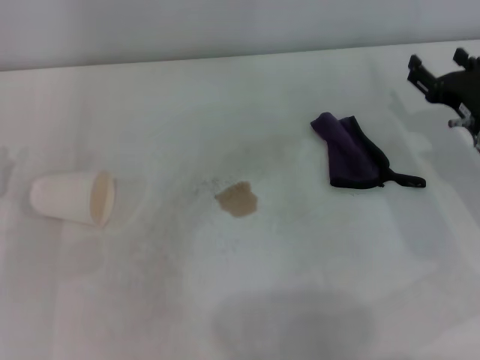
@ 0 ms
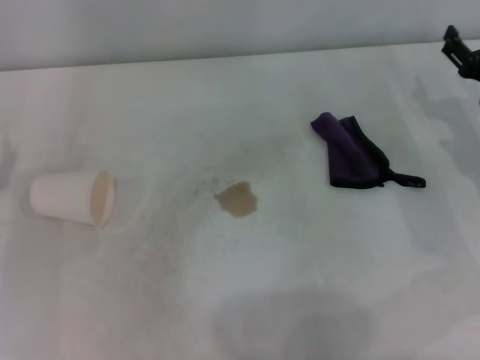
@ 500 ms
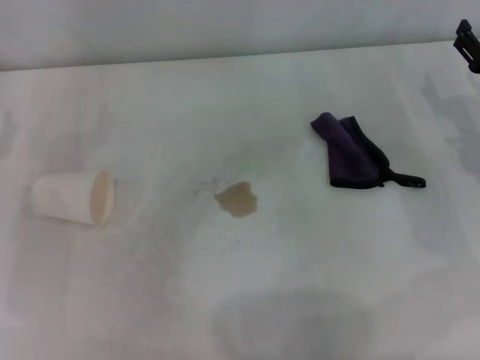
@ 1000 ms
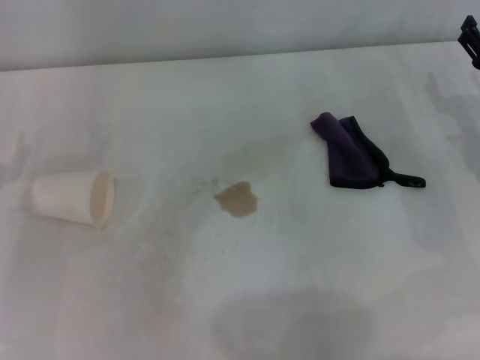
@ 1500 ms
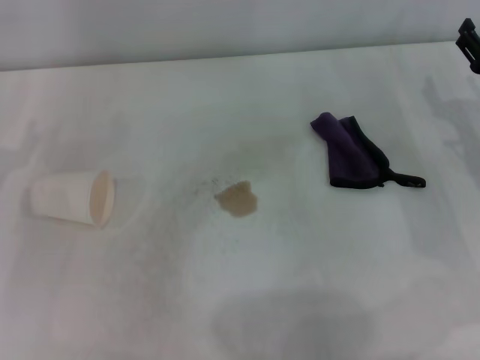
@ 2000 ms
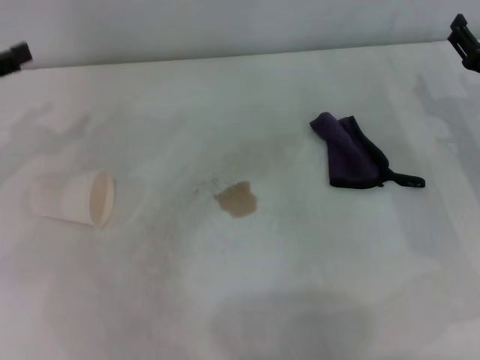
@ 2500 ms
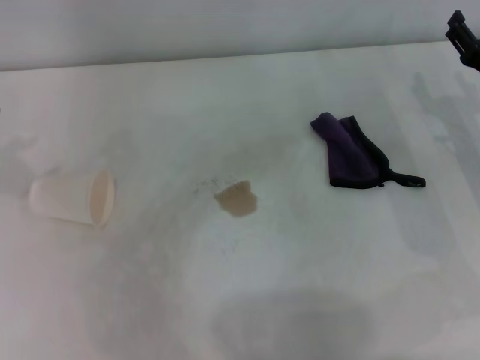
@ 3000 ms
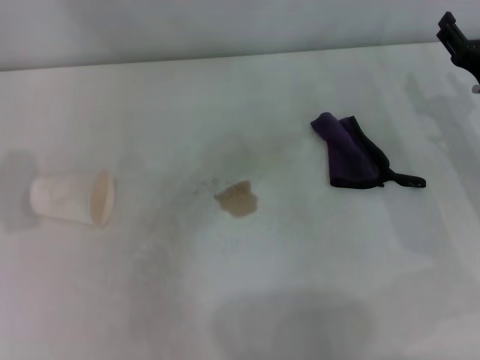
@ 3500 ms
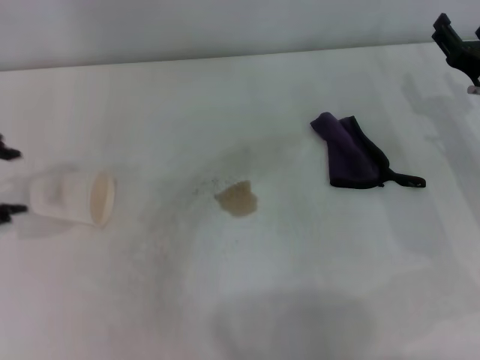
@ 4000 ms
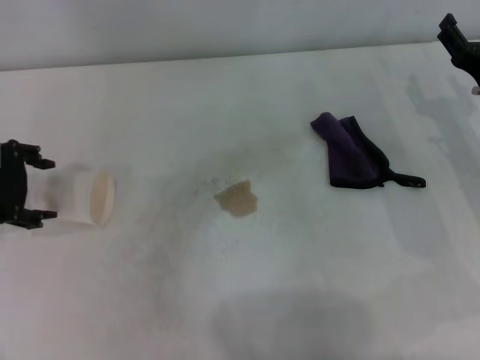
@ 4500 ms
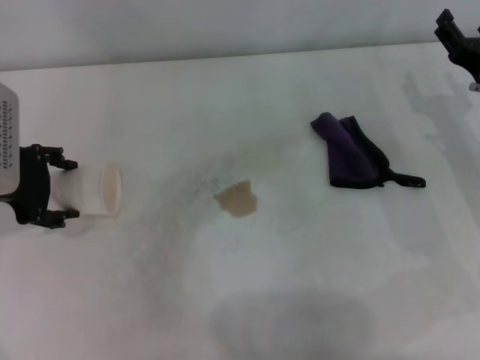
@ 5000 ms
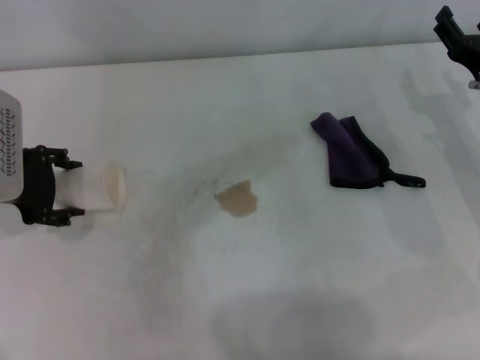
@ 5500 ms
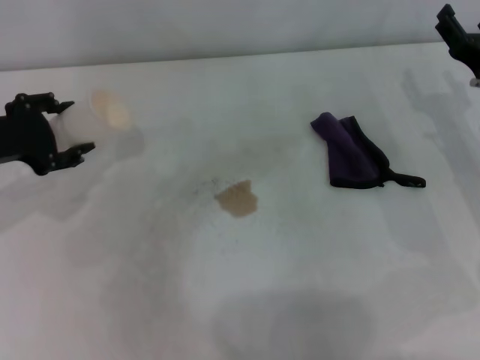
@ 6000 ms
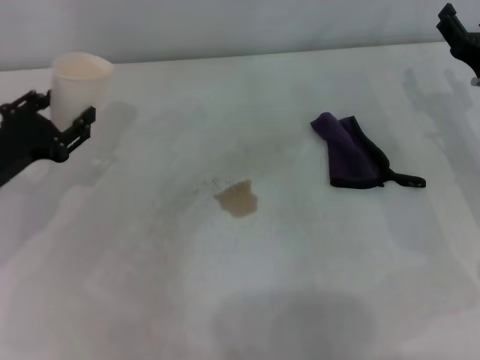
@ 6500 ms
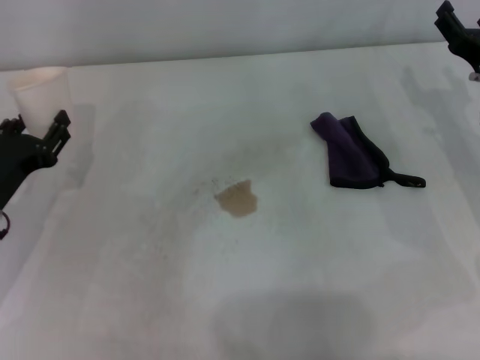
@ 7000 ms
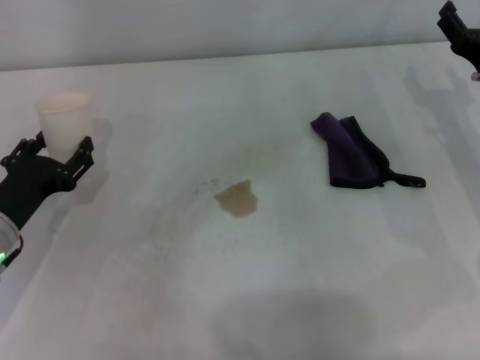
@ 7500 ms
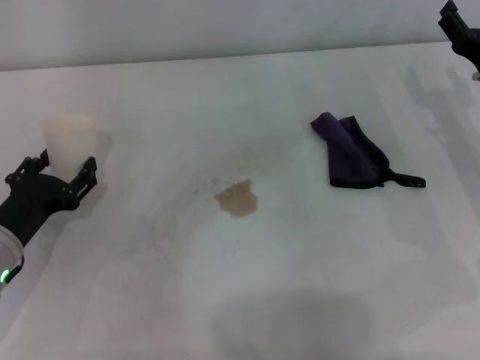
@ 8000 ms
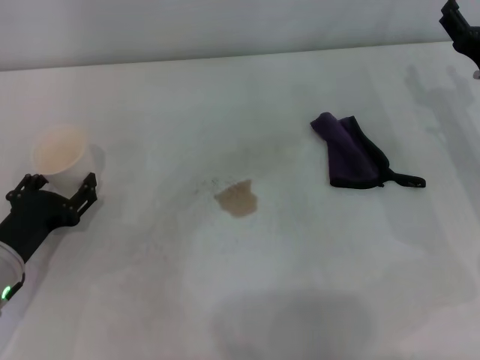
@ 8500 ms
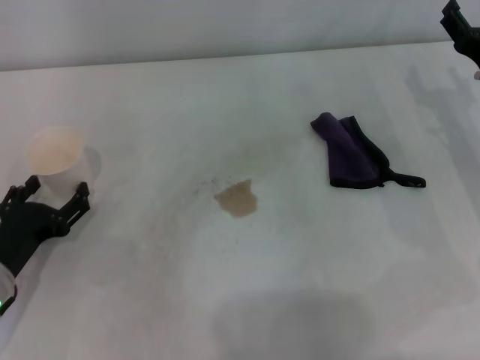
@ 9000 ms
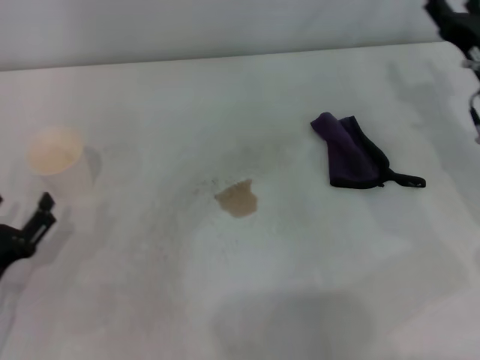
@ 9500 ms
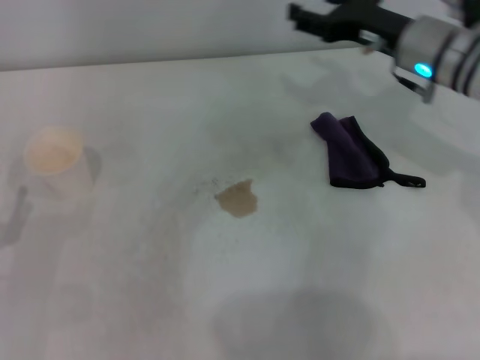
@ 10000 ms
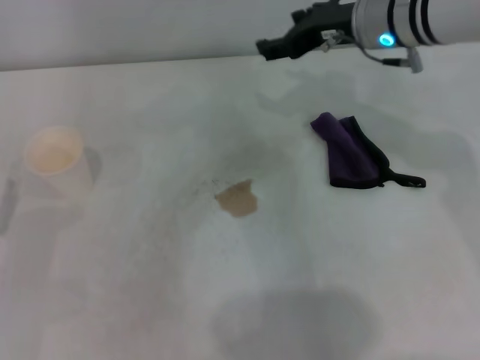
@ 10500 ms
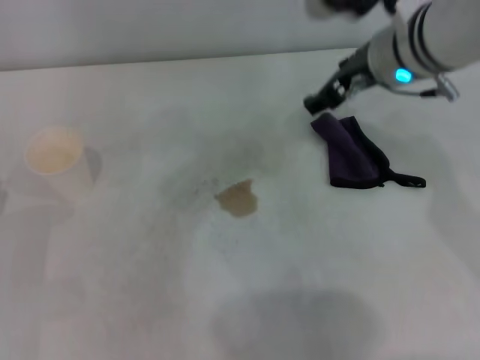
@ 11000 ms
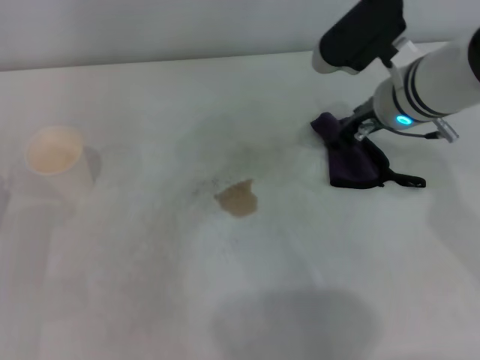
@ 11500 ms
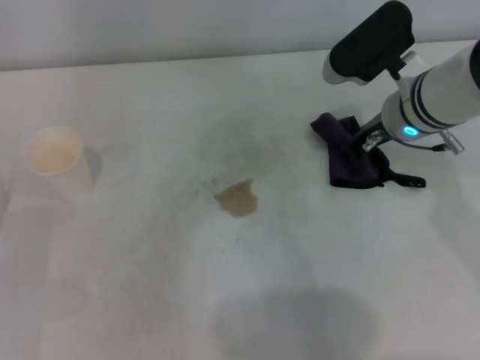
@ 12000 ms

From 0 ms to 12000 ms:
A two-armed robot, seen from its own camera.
Step, from 0 ms to 5000 ms: Grasp the paper cup with the left gripper.
Step, from 5500 ms to 8500 ms: Stand the paper cup upright with the left gripper.
From 4000 ms to 6000 ms: The left gripper travels downward by roughly 5 cm.
From 6000 ms to 8000 ms: The left gripper heads downward and backward, covering about 15 cm.
From 8000 ms to 10000 ms: The right gripper travels to the left, forward and upward by about 10 cm; the left gripper shifts some 10 cm backward and to the left, and opens.

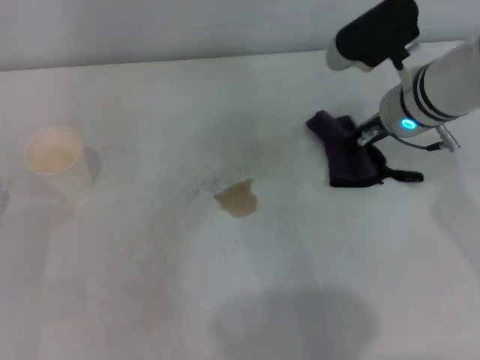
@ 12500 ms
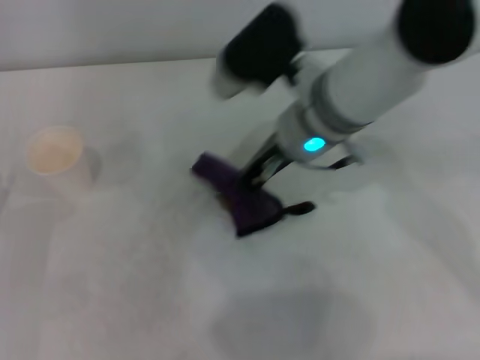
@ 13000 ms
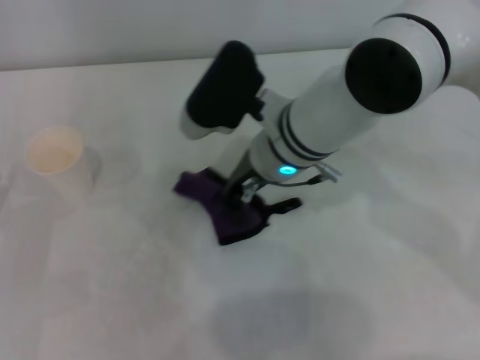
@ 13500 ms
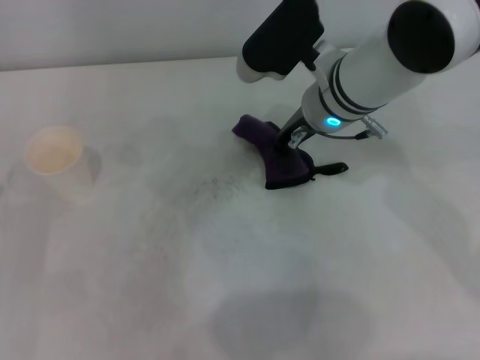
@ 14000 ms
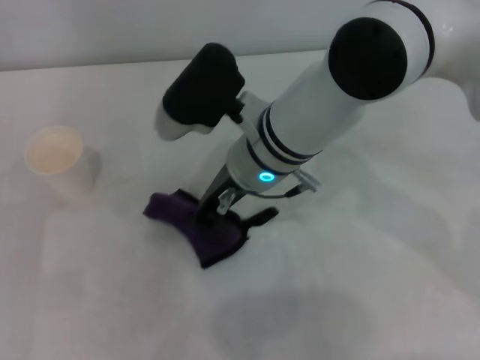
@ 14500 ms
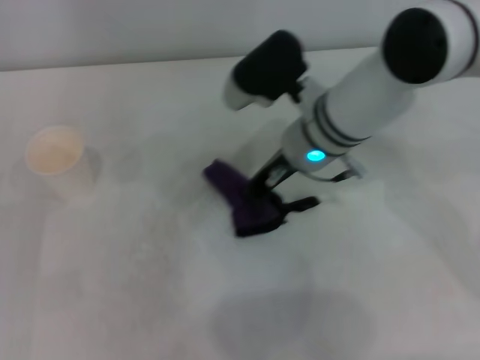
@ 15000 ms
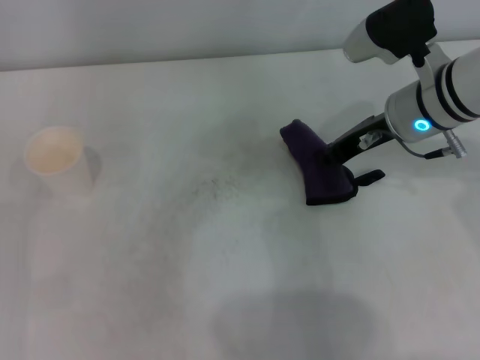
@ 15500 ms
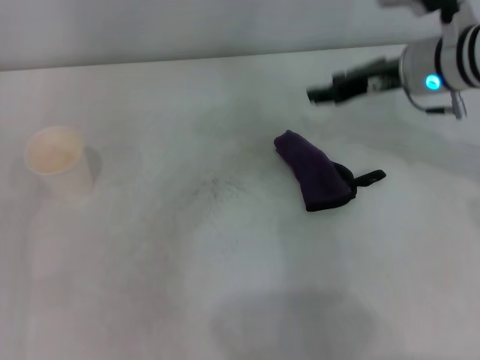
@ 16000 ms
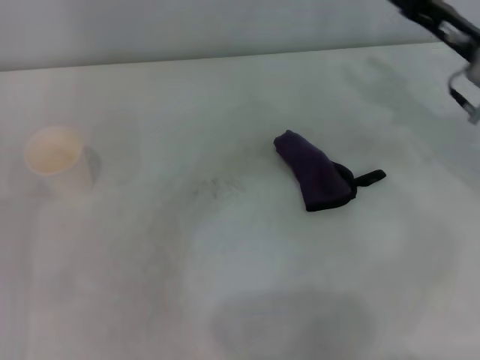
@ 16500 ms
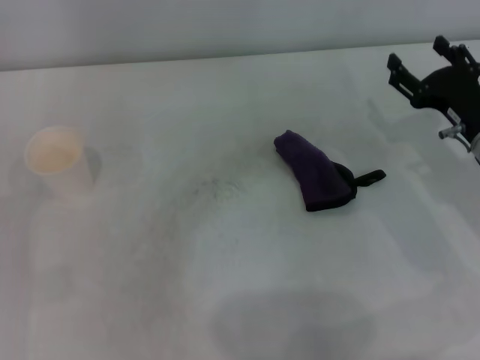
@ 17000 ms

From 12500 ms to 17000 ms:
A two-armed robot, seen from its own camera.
Step, from 12500 ms to 14500 ms: Wipe the stains off the table with the right gripper.
Step, from 15000 ms to 15500 ms: Place the rag on the table with the right gripper.
From 12500 ms to 14500 ms: The right gripper goes left and right, some 15 cm each way, reversing 2 times.
From 14500 ms to 17000 ms: The right gripper travels to the right by some 25 cm, and opens up.

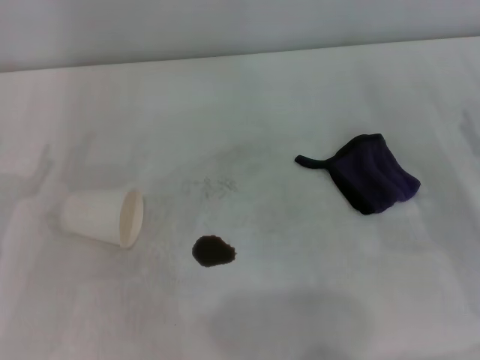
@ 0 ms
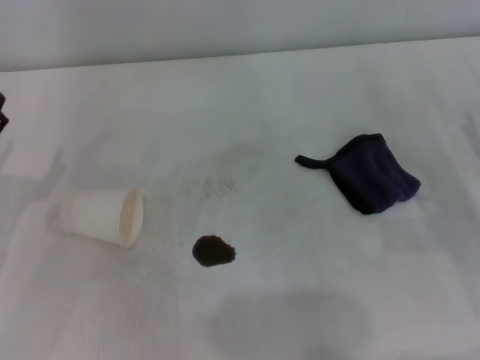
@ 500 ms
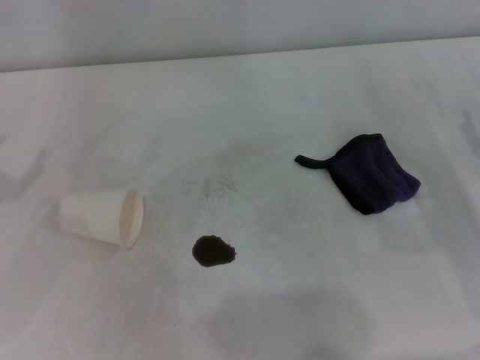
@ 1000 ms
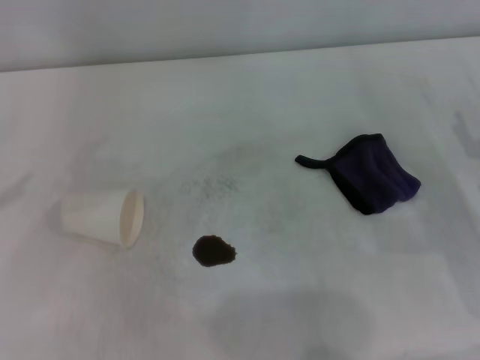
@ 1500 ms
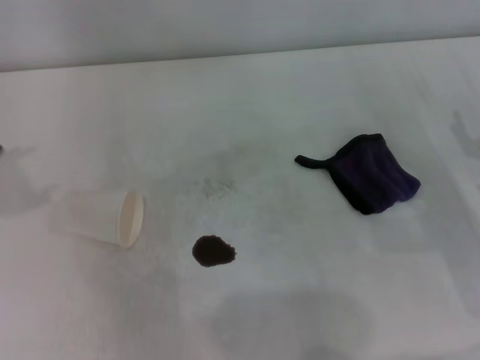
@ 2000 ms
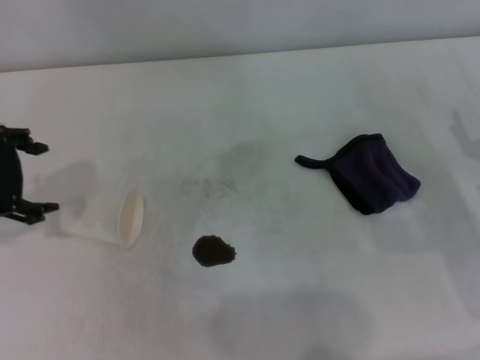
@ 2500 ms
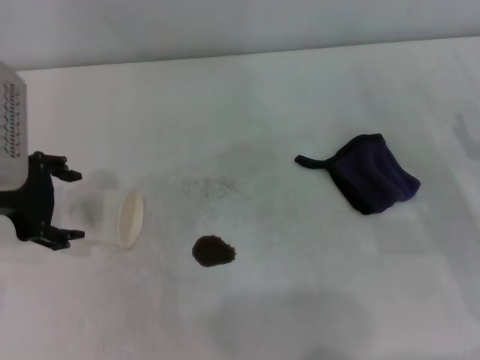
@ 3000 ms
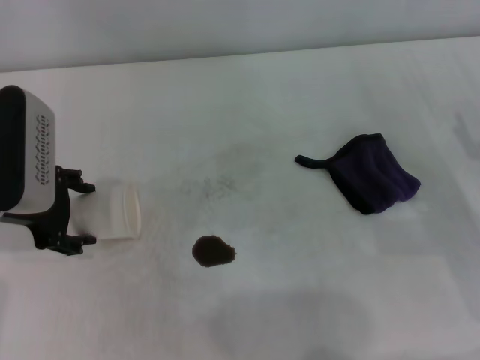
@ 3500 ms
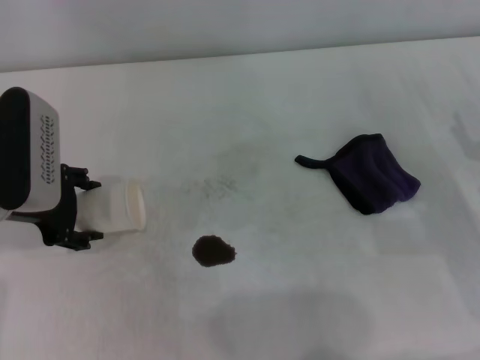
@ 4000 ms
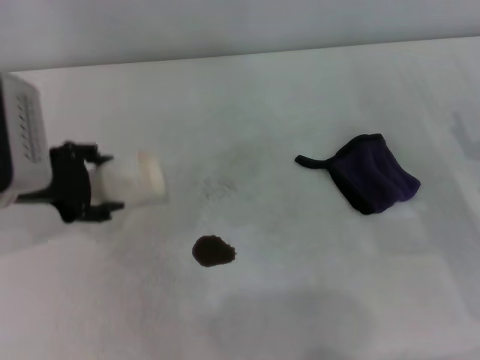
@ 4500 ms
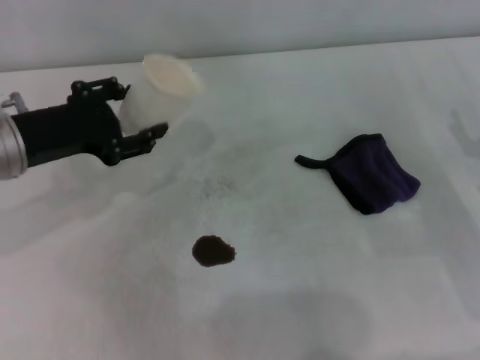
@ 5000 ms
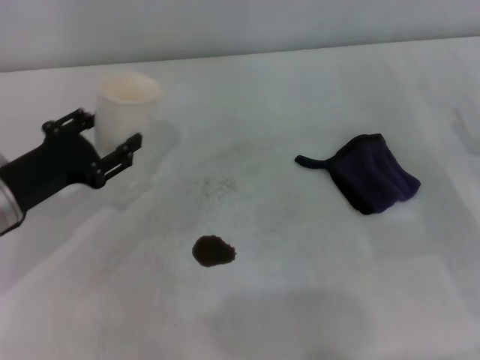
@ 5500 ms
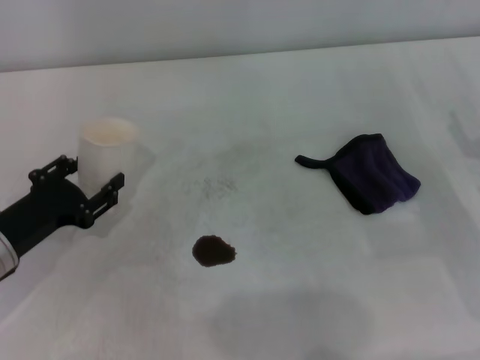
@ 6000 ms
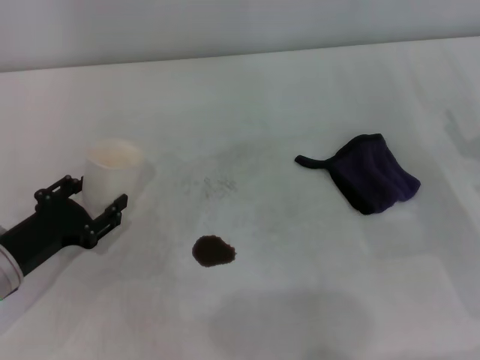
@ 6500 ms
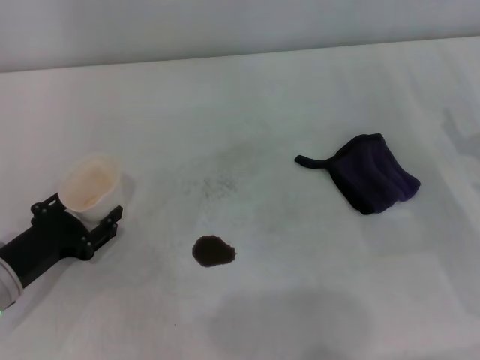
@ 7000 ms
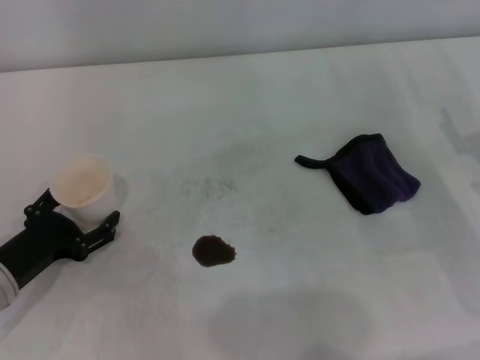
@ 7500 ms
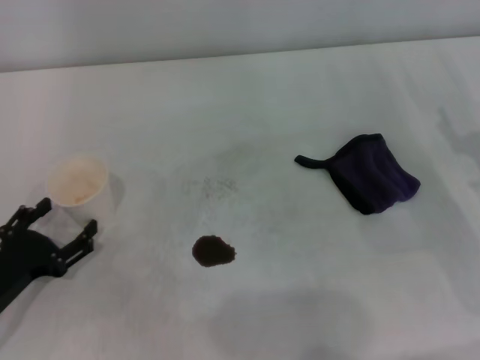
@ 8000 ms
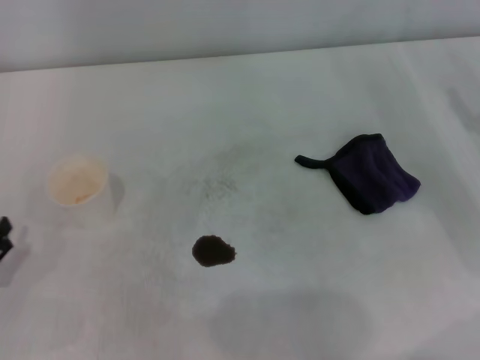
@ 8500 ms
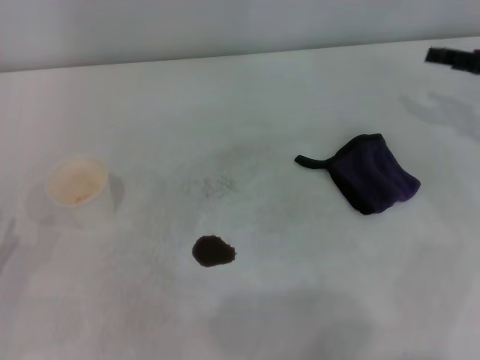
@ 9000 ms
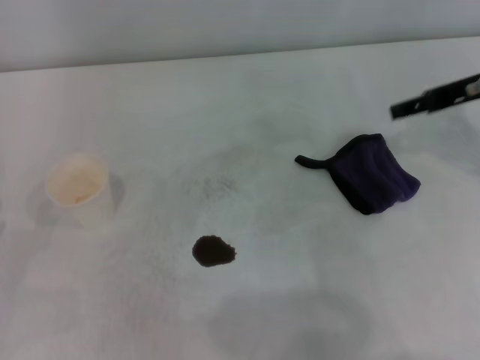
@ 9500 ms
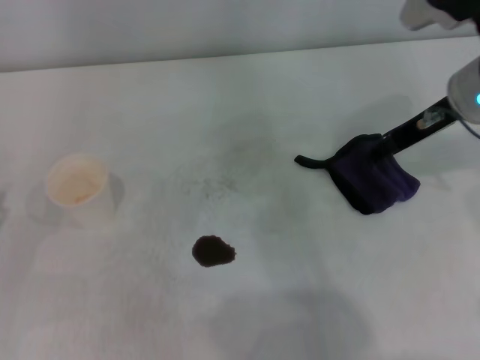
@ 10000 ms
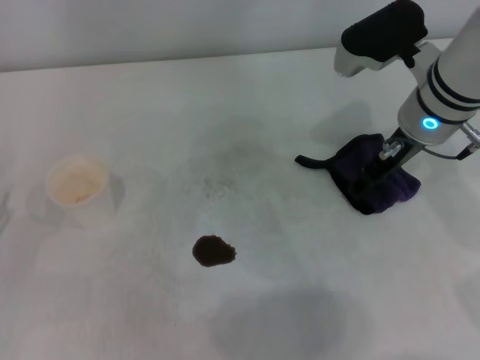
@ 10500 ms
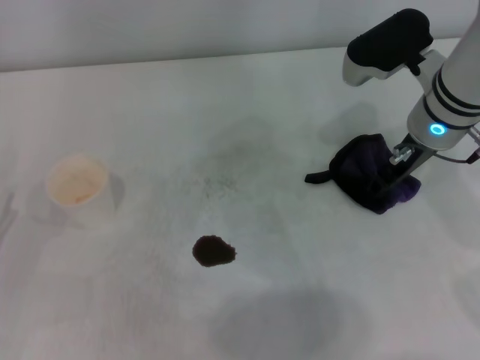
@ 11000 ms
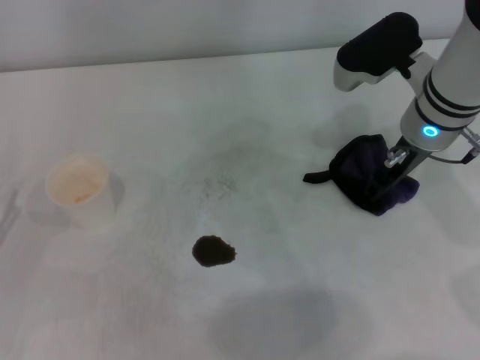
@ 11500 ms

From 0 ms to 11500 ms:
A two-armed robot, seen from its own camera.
Step, from 0 ms to 3500 ms: Grasp the paper cup with the left gripper.
Step, from 4000 ms to 7000 ms: Stand the paper cup upright with the left gripper.
Step, from 7500 ms to 11000 ms: Grasp the rag with the right gripper.
From 2000 ms to 4000 ms: The left gripper moves to the right and downward, about 15 cm.
From 4000 ms to 6000 ms: The left gripper is displaced downward and backward by about 10 cm, and closes up.
From 6000 ms to 7500 ms: The left gripper opens up.
From 7500 ms to 9500 ms: The right gripper travels upward and forward by some 15 cm. The left gripper goes approximately 10 cm to the left and backward.
From 9500 ms to 11500 ms: The right gripper travels to the left by some 10 cm, and closes.
